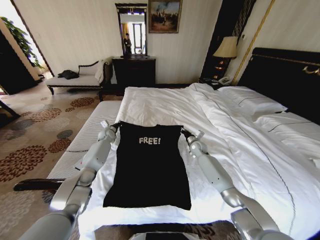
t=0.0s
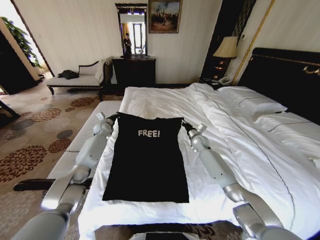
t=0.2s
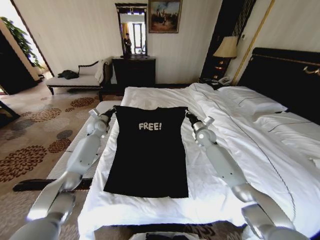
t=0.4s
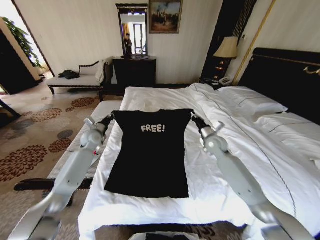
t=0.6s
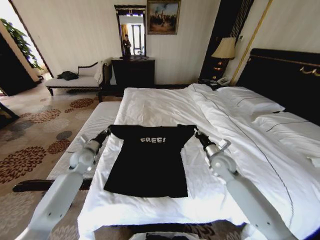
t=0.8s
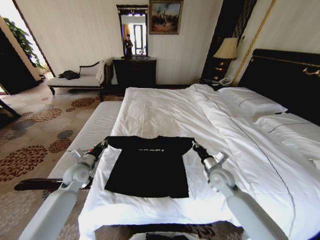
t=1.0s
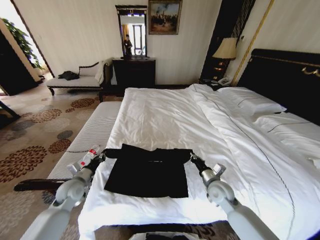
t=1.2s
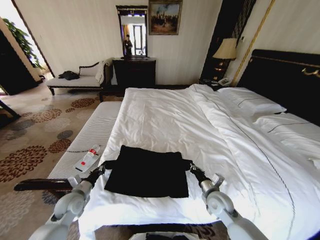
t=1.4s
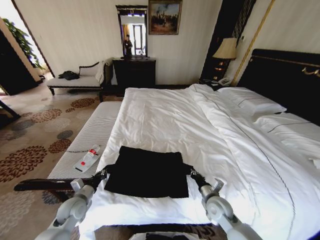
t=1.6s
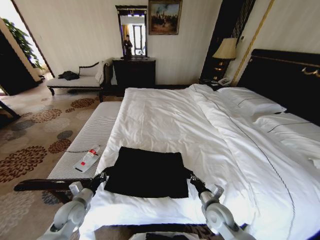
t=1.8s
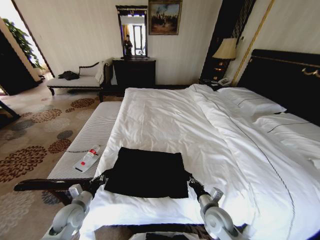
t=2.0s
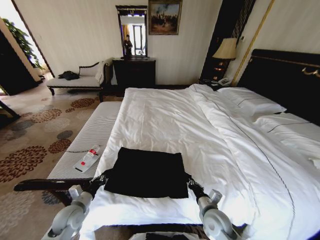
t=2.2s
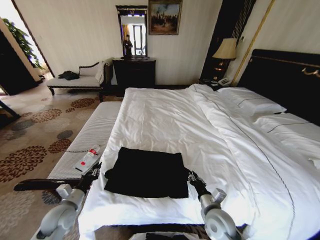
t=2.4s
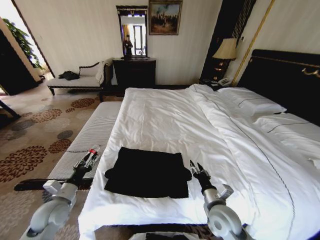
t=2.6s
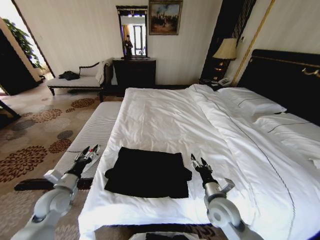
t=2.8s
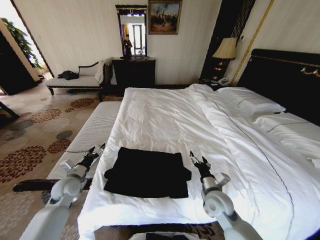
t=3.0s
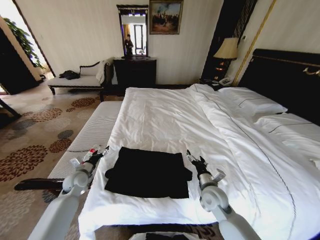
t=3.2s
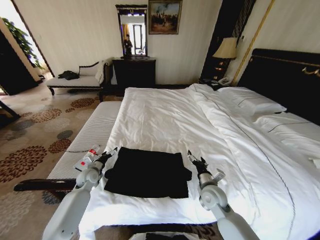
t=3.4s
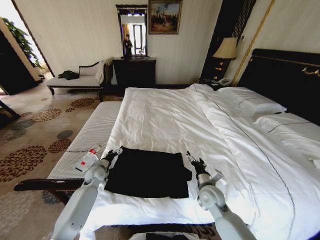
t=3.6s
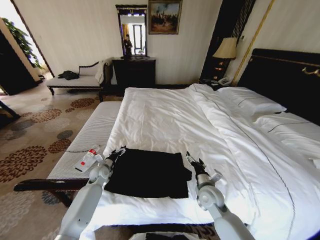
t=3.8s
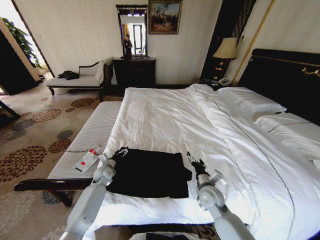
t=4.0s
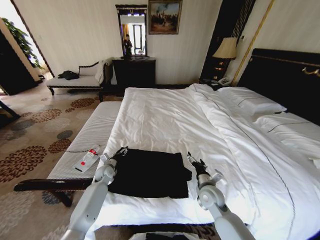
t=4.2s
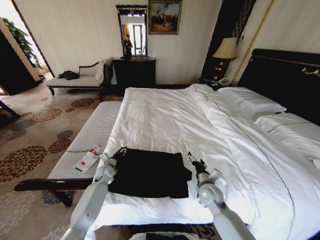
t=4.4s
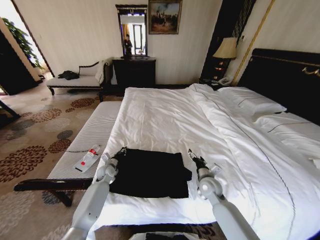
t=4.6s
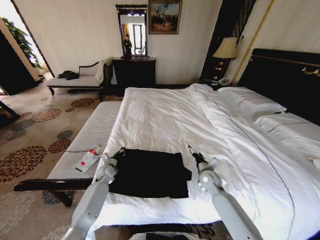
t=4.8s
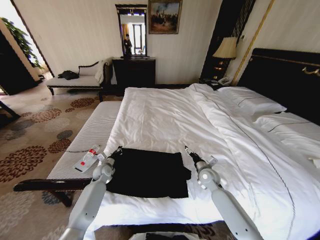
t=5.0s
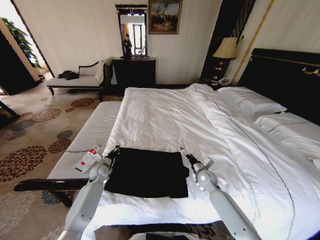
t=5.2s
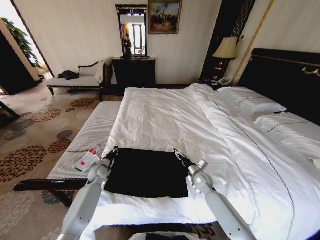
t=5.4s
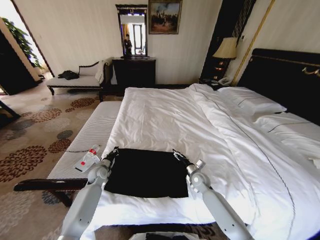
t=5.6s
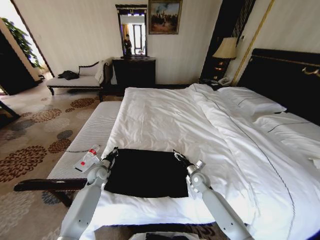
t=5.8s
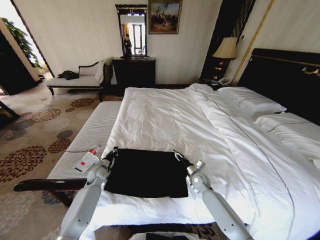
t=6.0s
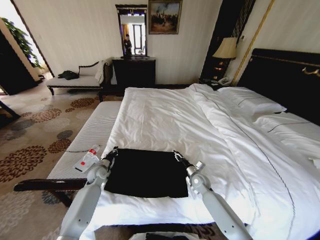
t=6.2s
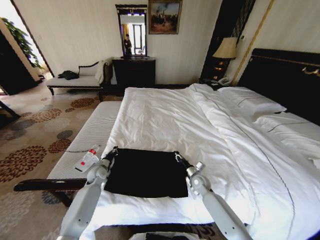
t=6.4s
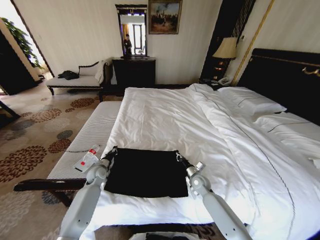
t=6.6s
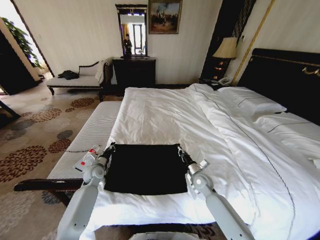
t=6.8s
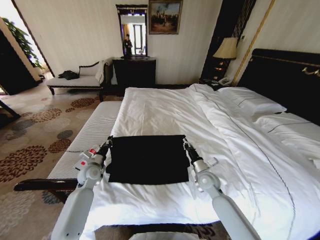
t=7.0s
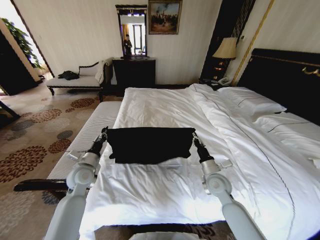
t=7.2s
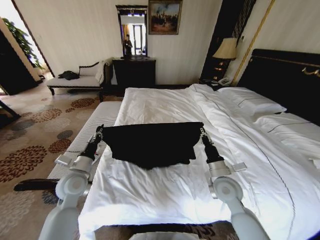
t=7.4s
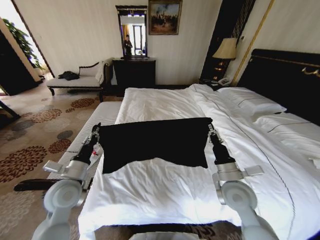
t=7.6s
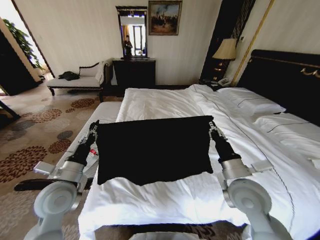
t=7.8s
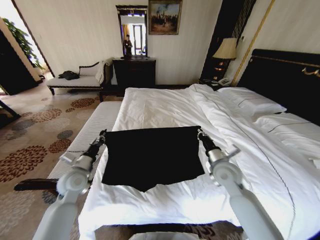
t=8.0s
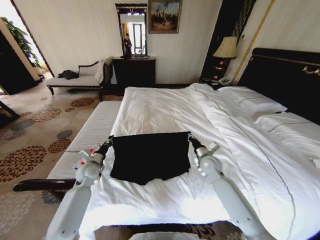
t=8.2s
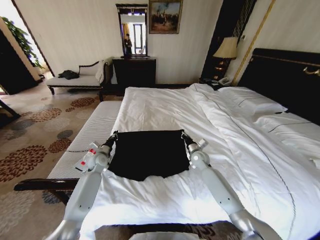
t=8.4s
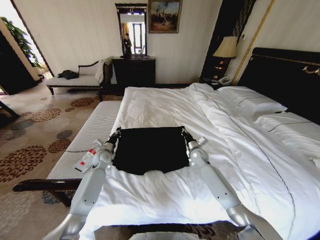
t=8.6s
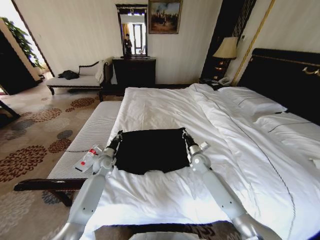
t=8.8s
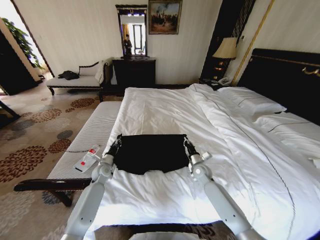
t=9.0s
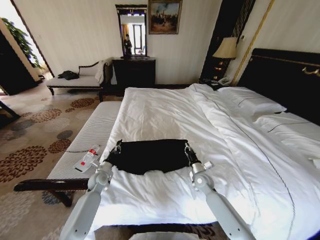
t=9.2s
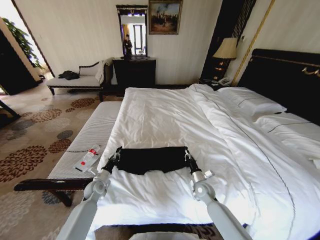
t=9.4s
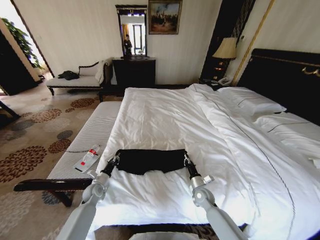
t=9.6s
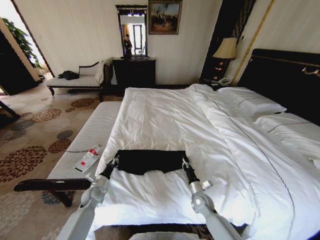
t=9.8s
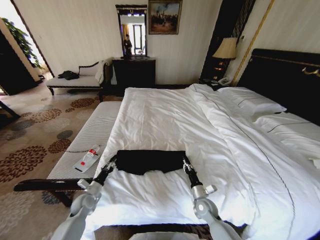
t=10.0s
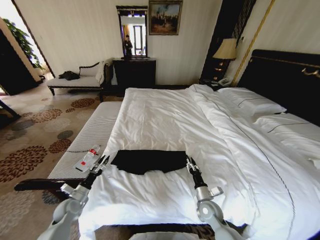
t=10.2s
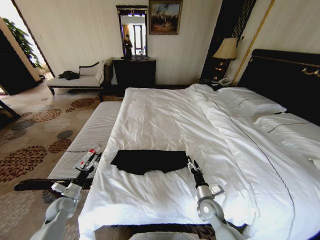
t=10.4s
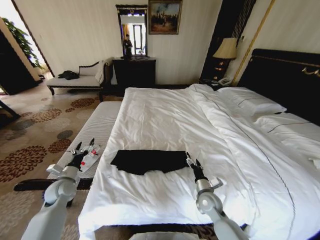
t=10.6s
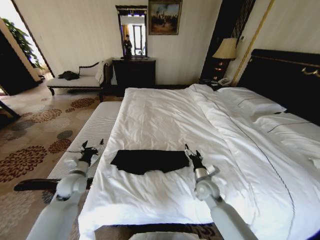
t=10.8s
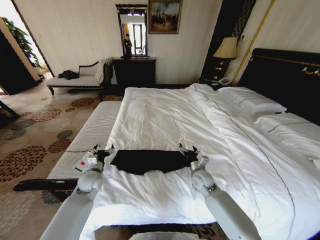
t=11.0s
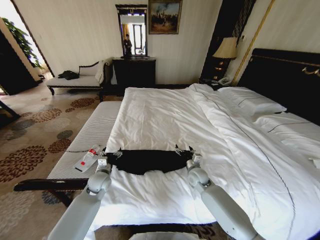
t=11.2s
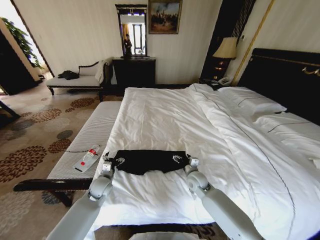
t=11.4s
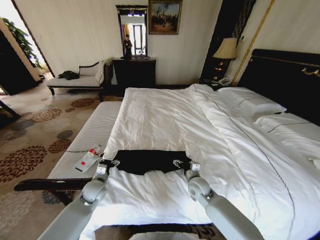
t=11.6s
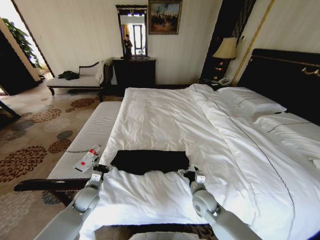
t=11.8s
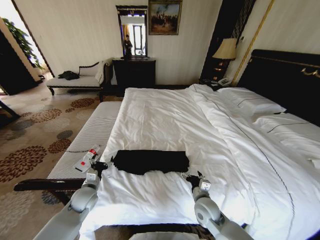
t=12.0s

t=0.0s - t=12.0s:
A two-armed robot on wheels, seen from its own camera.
Task of the whole recording: Fold the clothes on the bed.
t=0.0s - t=1.6s: Both grippers travel together backward, some 35 cm.
t=1.6s - t=3.0s: The left gripper heads forward and upward, covering roughly 10 cm, and opens up; the right gripper travels upward by approximately 5 cm, and opens.
t=3.0s - t=4.4s: The right gripper moves roughly 5 cm; the left gripper is displaced forward, downward and to the right by approximately 20 cm.
t=4.4s - t=6.0s: The left gripper closes up, while the right gripper moves forward and downward, about 10 cm.
t=6.0s - t=7.6s: Both grippers travel together upward and backward, roughly 25 cm. The right gripper closes up.
t=7.6s - t=9.0s: Both grippers travel together downward and forward, some 25 cm.
t=9.0s - t=10.4s: The left gripper heads backward and to the left, covering approximately 20 cm, and opens. Meanwhile the right gripper goes about 15 cm backward, and opens its fingers.
t=10.4s - t=12.0s: The right gripper is displaced upward by roughly 5 cm, and goes forward and returns, roughly 15 cm each way. Meanwhile the left gripper goes approximately 15 cm to the right and upward.

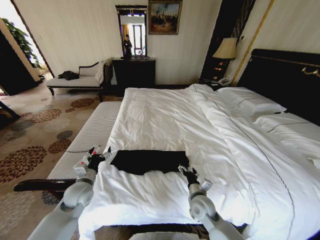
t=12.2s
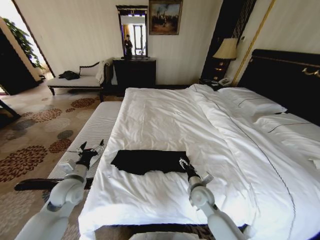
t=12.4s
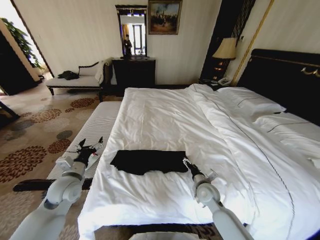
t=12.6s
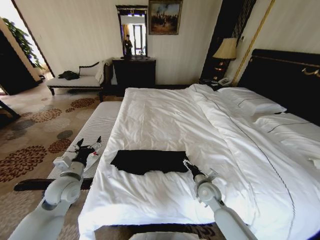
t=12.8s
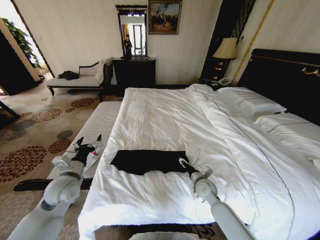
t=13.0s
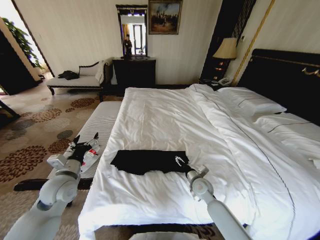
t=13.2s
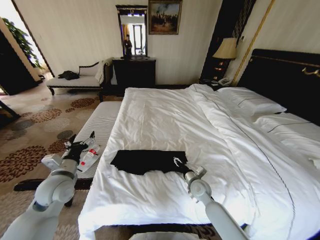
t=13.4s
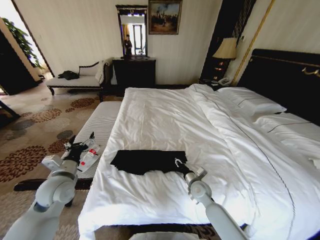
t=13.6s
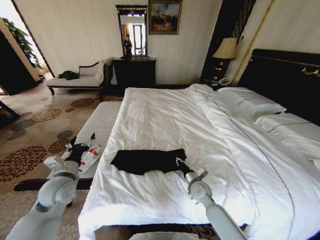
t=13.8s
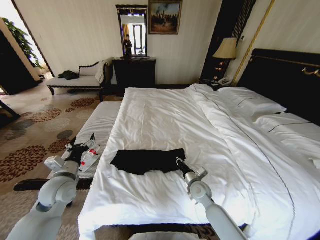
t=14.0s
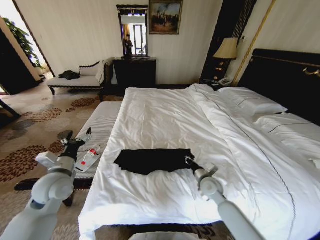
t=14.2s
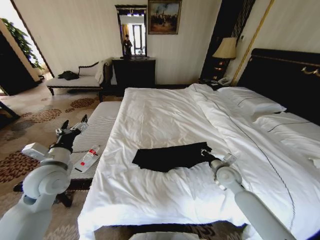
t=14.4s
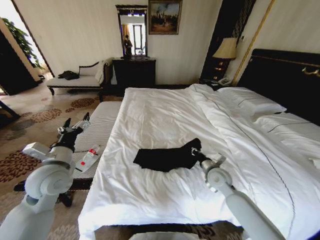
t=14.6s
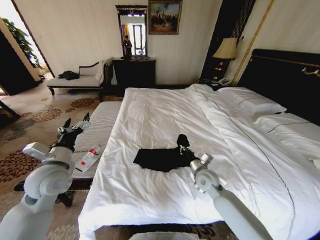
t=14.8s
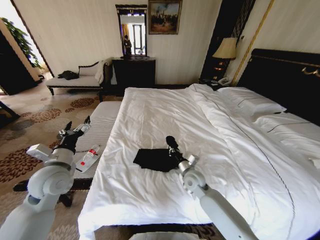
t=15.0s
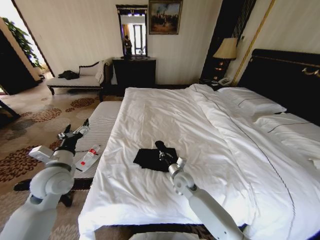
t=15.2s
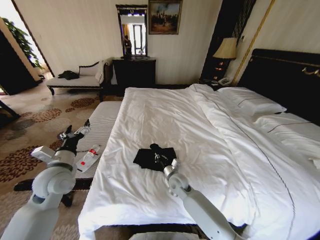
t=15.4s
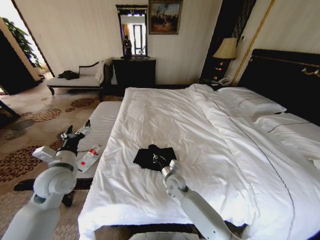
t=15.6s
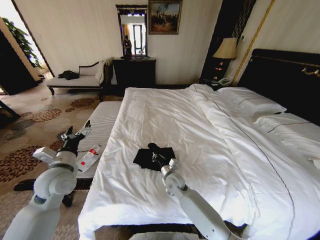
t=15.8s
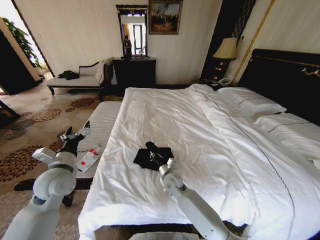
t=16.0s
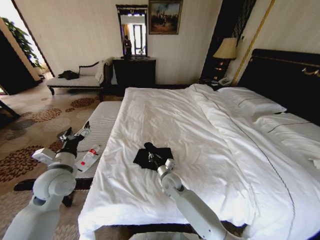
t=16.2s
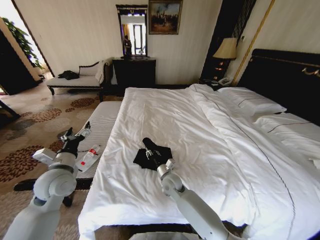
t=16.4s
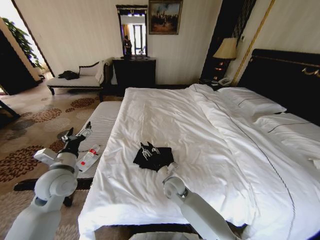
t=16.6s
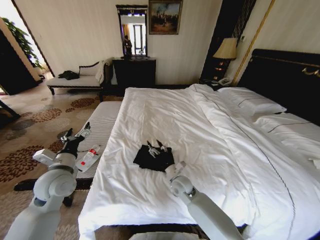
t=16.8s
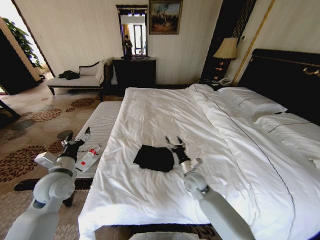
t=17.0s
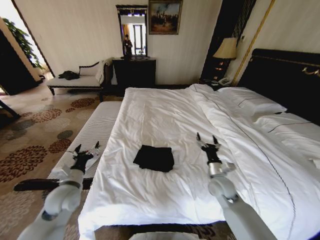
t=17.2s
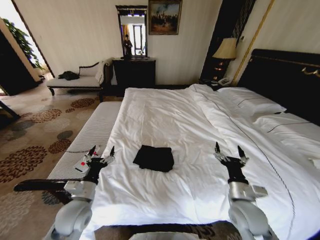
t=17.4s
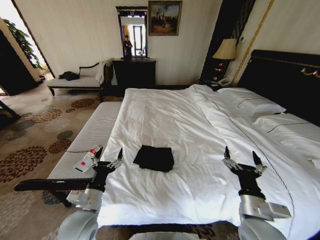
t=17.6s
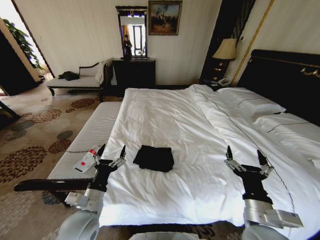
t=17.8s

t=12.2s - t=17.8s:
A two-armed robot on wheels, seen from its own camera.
Task of the whole recording: Fold the clothes on the bed.
t=12.2s - t=13.6s: The left gripper travels upward by approximately 5 cm. Meanwhile the right gripper goes roughly 5 cm forward, and closes up.
t=13.6s - t=15.0s: Both grippers travel together upward, approximately 5 cm. The right gripper goes to the right and returns, about 10 cm each way, and closes.
t=15.0s - t=16.4s: The right gripper goes some 10 cm to the left.
t=16.4s - t=17.8s: The left gripper shifts about 15 cm backward, to the right and downward; the right gripper moves backward, to the right and upward, about 35 cm, and opens up.
